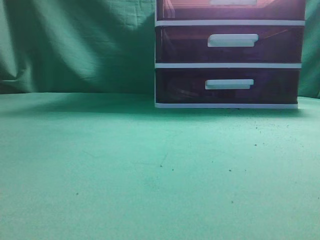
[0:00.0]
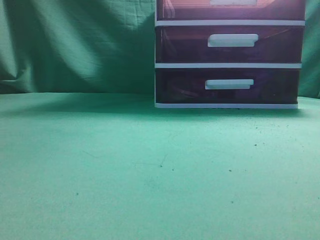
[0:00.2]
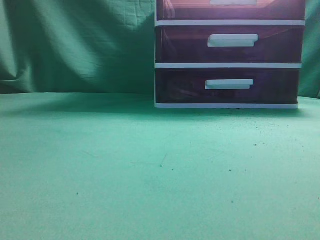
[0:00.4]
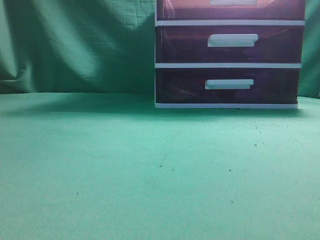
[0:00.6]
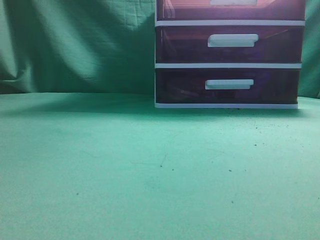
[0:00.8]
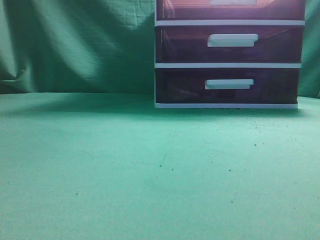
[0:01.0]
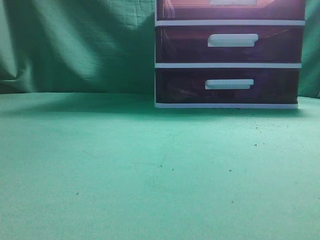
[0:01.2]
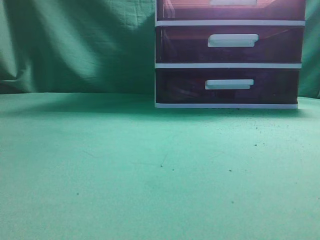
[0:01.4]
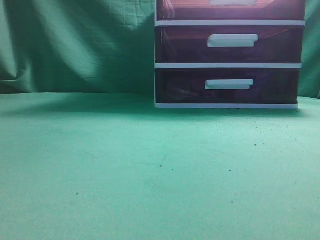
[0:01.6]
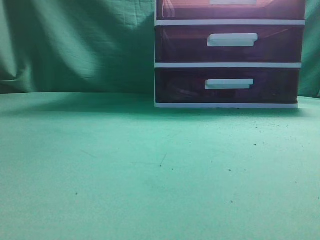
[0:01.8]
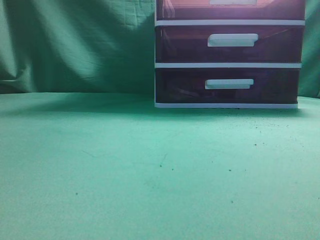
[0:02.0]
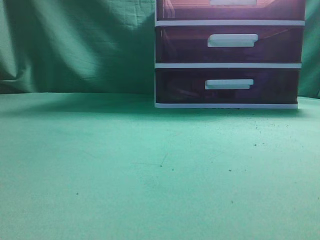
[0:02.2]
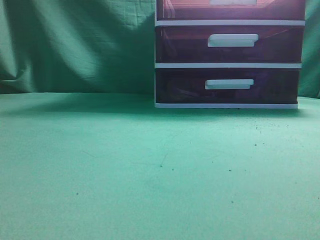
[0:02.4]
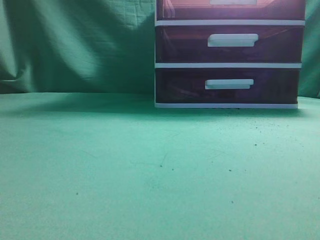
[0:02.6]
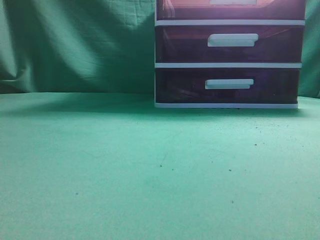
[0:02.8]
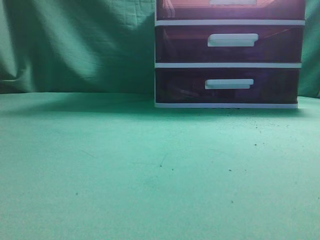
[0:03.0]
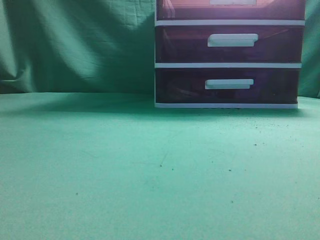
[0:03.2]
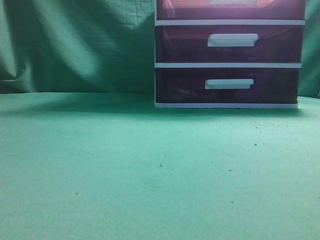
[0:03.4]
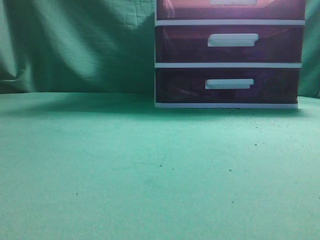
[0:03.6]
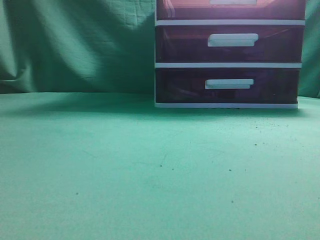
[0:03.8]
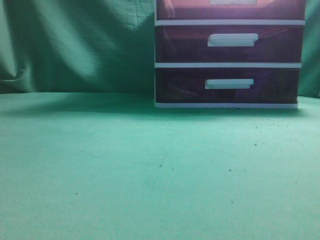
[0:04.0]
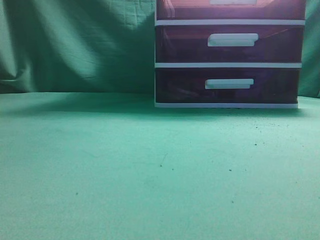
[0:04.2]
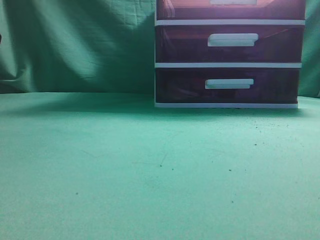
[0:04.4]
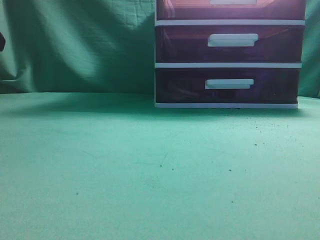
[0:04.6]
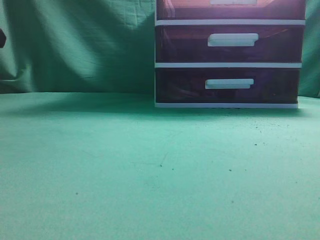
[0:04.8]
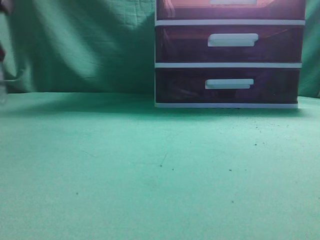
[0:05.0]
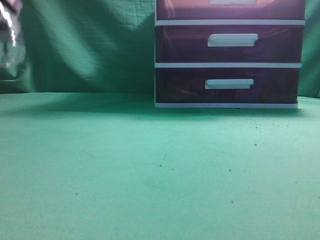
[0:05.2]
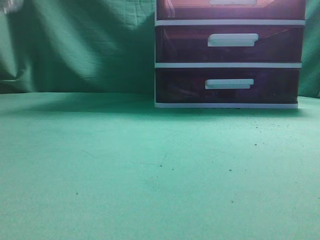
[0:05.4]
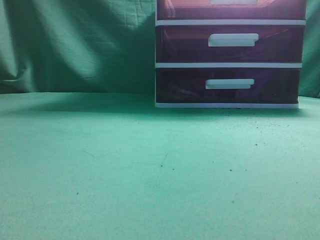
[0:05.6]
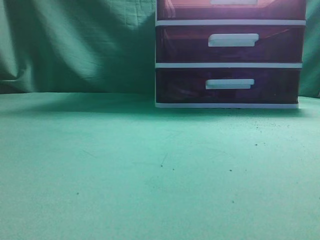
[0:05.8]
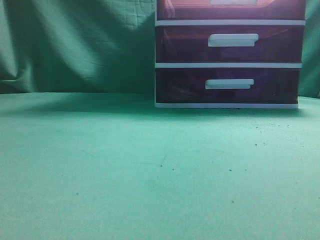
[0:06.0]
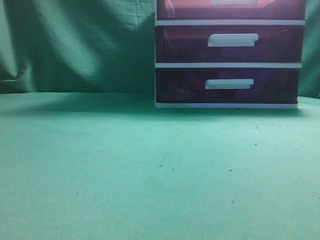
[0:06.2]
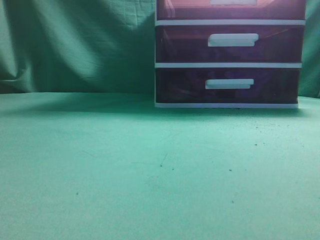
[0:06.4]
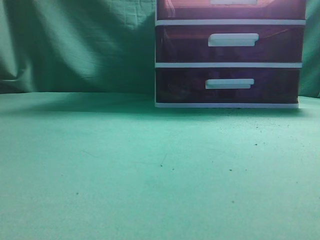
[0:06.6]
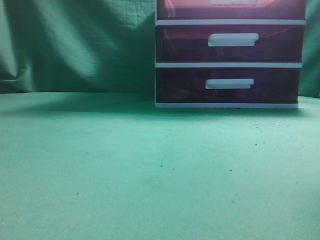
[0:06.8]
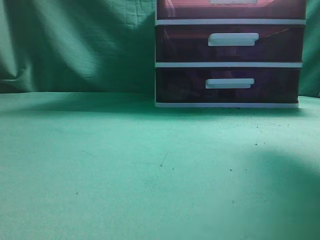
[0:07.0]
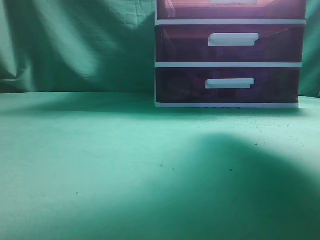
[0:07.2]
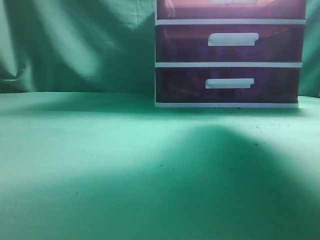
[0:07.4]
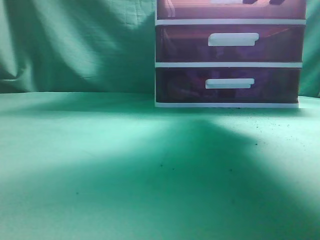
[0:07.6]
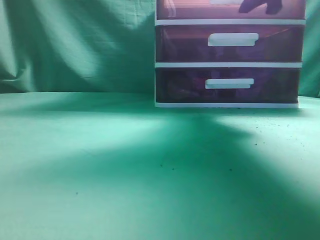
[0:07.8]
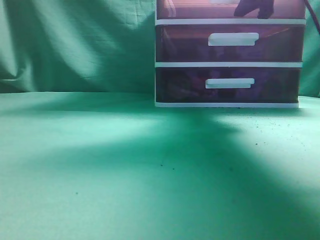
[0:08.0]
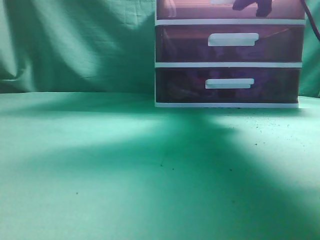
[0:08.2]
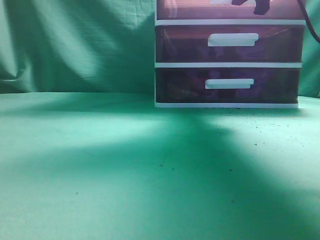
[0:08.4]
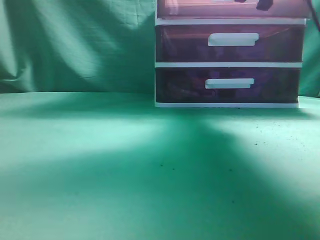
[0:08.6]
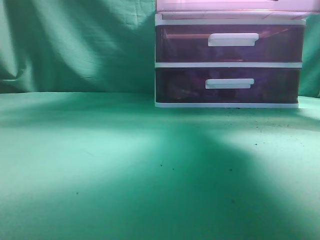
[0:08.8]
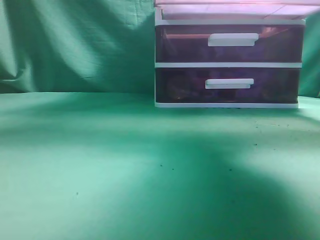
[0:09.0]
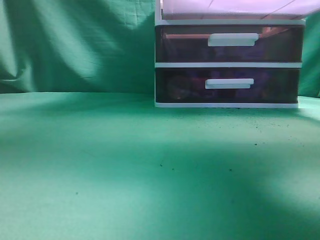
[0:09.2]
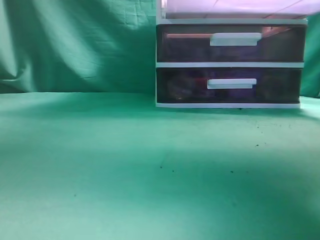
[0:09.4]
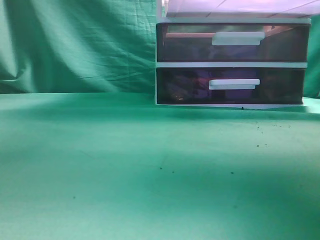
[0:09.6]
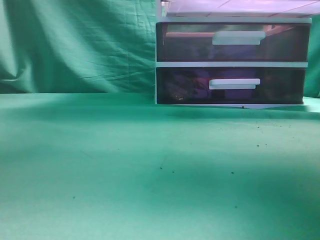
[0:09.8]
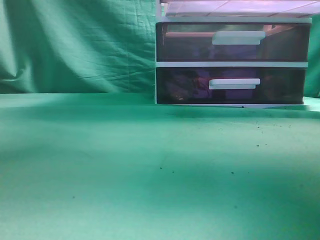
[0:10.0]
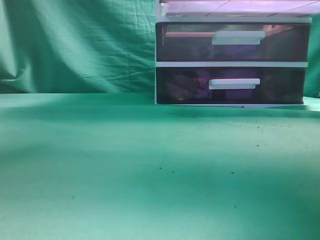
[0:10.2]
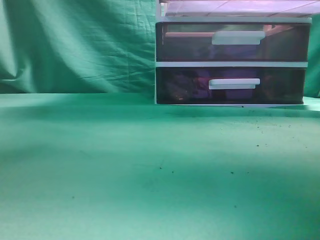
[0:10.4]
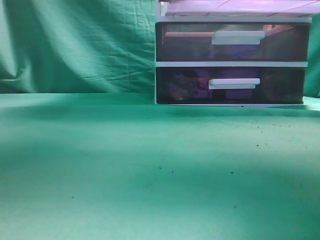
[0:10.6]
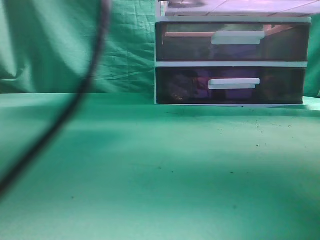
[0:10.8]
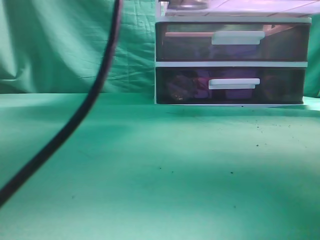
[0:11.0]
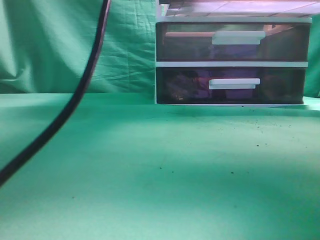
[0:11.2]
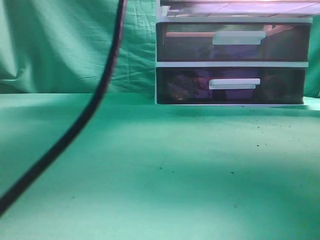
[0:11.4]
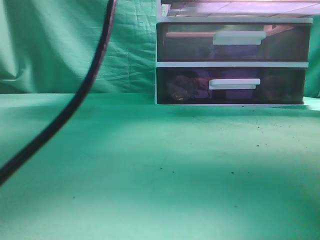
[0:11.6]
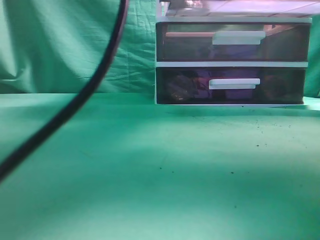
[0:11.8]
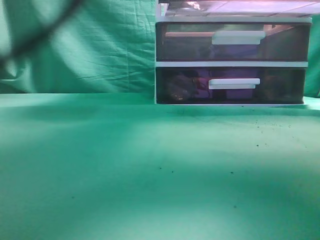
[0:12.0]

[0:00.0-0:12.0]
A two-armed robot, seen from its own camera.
Task of the whole recording: place the water bottle into the drawer.
Step, 0:00.0 to 0:09.6: Open the drawer.
0:06.0 to 0:07.6: The right gripper heads forward, covering approximately 35 cm, and opens up. Meanwhile the left gripper changes place by some 5 cm.
0:07.6 to 0:09.0: The right gripper is displaced backward by roughly 5 cm, and closes its fingers.
0:09.0 to 0:10.4: The right gripper travels backward by some 10 cm; the left gripper heads to the right, upward and forward, covering roughly 25 cm.
0:10.4 to 0:12.0: The left gripper moves to the right, downward and forward, roughly 15 cm, and opens up.

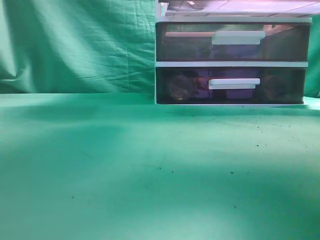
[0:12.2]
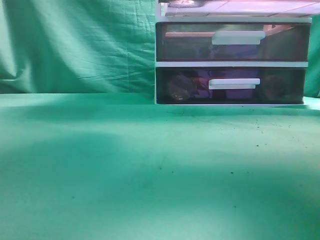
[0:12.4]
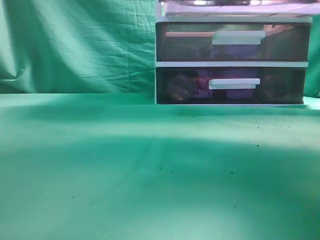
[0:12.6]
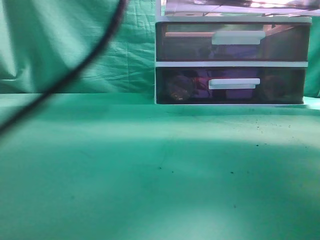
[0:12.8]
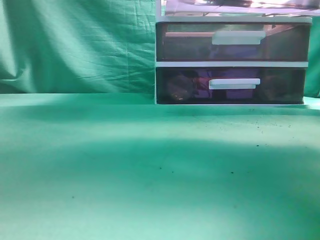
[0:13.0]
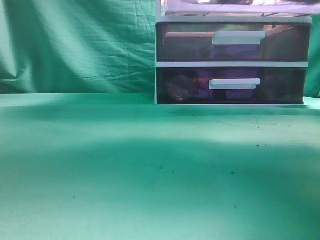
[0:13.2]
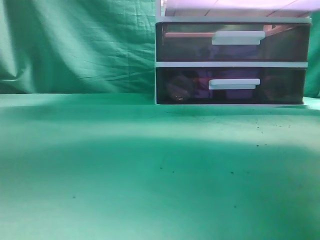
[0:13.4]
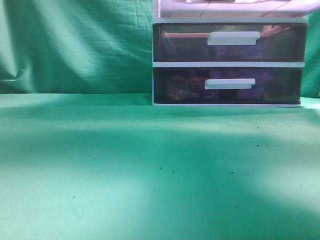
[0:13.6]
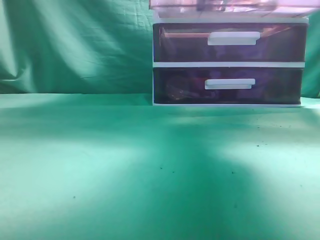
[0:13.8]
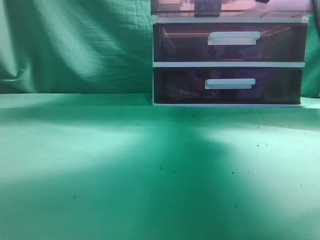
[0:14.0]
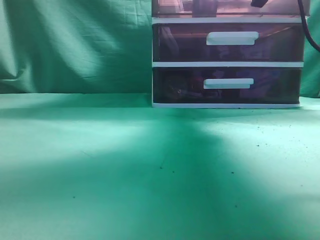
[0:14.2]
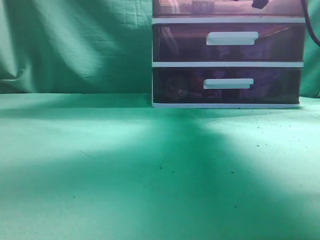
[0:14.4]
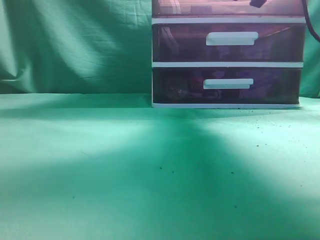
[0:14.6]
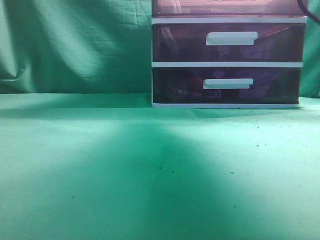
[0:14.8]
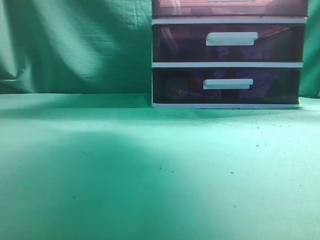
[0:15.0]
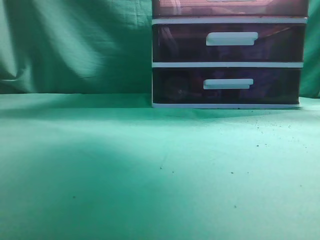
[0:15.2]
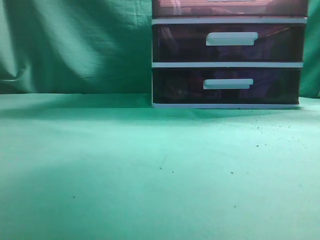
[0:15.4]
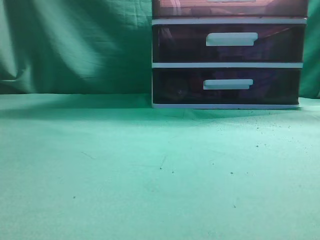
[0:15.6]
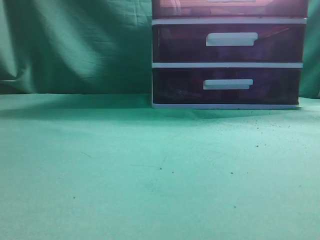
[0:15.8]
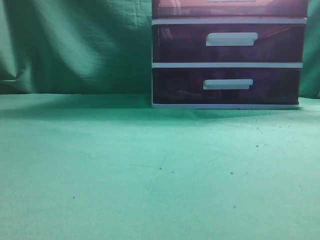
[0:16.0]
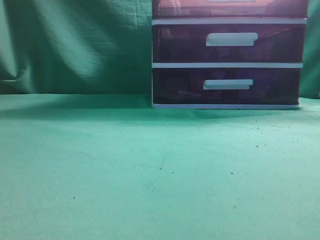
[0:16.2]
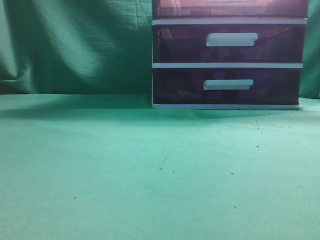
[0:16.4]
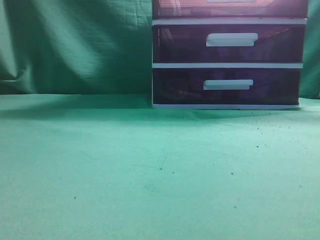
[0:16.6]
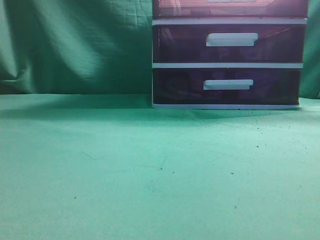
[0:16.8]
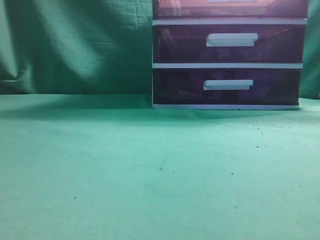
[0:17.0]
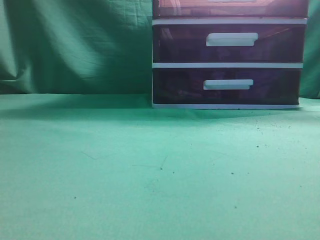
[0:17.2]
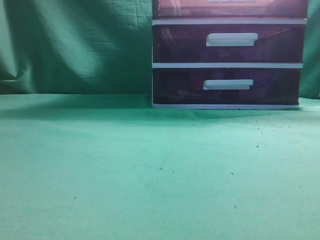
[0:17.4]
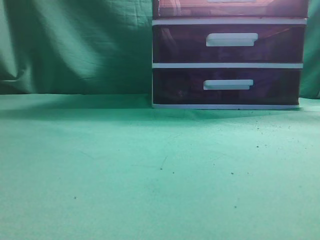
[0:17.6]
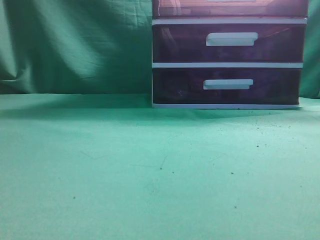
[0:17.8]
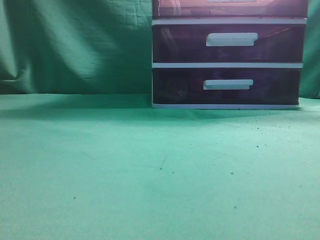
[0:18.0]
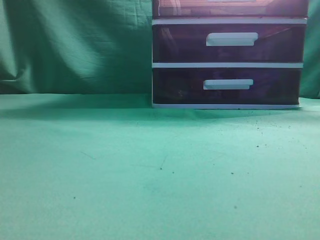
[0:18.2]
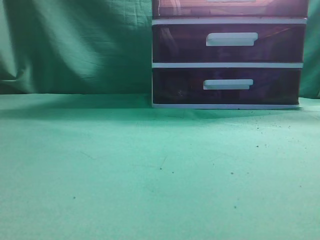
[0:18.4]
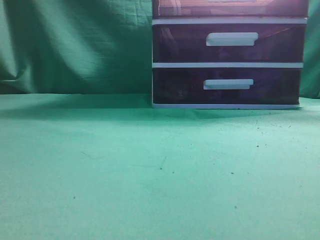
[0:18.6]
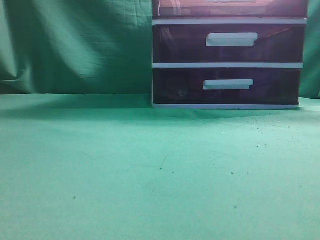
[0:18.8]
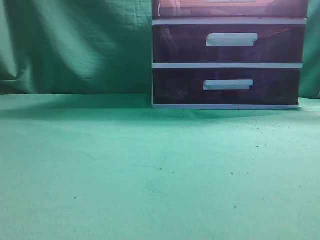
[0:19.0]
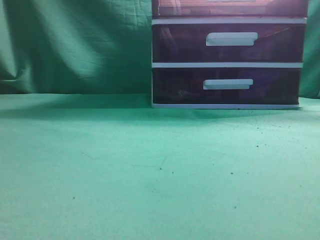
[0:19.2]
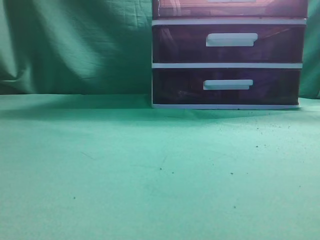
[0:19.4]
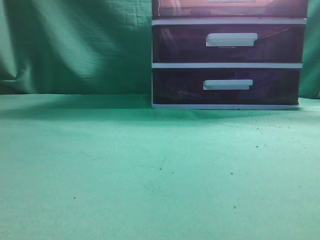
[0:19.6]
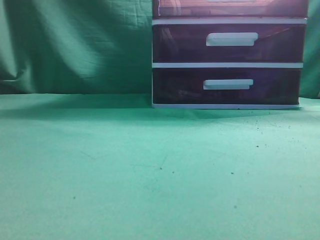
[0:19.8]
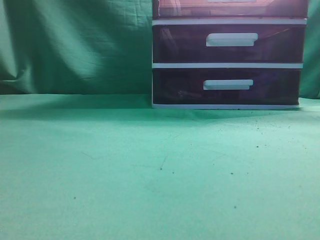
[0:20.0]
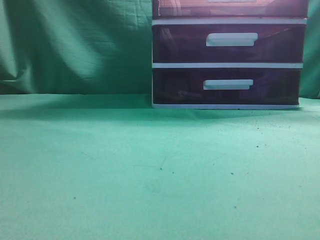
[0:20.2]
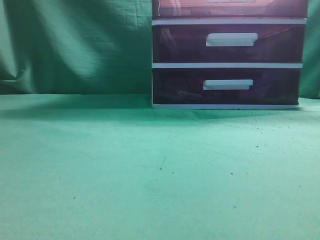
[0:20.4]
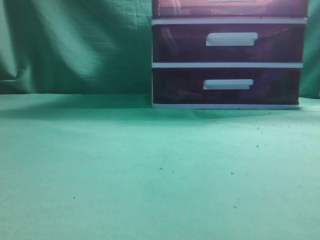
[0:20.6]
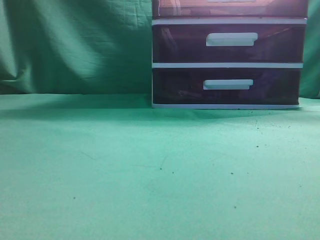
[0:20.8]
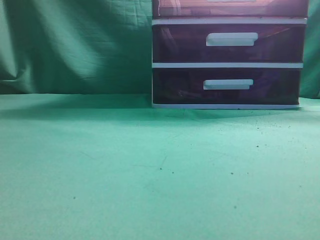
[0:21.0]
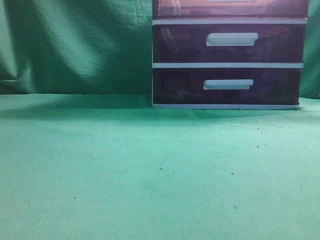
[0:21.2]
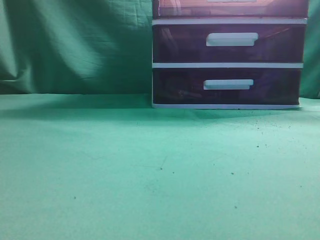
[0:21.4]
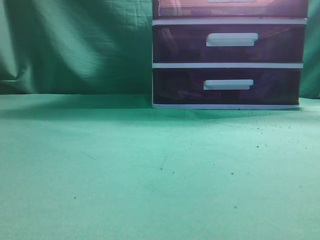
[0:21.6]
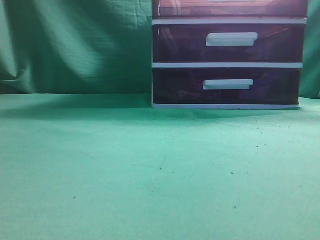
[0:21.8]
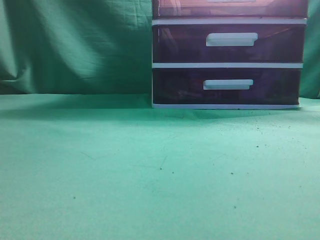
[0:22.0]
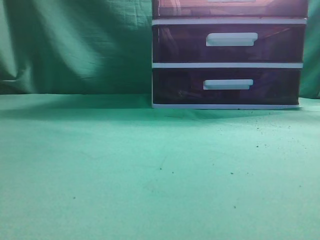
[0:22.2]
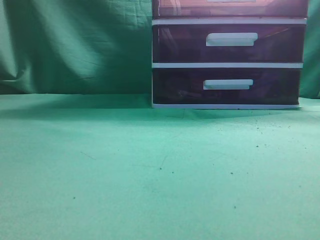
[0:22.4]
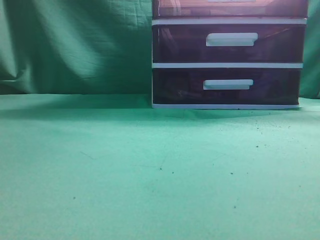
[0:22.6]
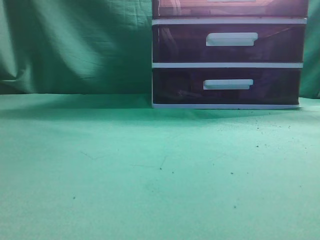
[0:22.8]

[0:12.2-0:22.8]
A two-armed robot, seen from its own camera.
Task of the whole recording: place the water bottle into the drawer.
Step, 0:13.4 to 0:15.0: Close the drawer.
0:12.2 to 0:13.8: The left gripper is displaced to the left, upward and backward by approximately 25 cm, and closes. The right gripper moves forward, approximately 10 cm.
0:13.8 to 0:15.2: The right gripper is displaced upward by approximately 5 cm, and opens.
0:15.2 to 0:16.8: The left gripper shifts approximately 35 cm backward, to the left and downward; the right gripper moves backward, some 25 cm, and closes.
